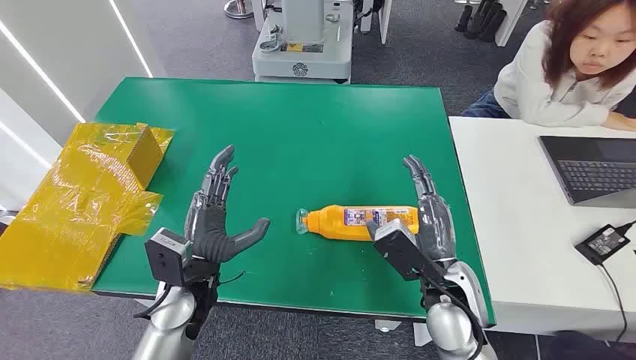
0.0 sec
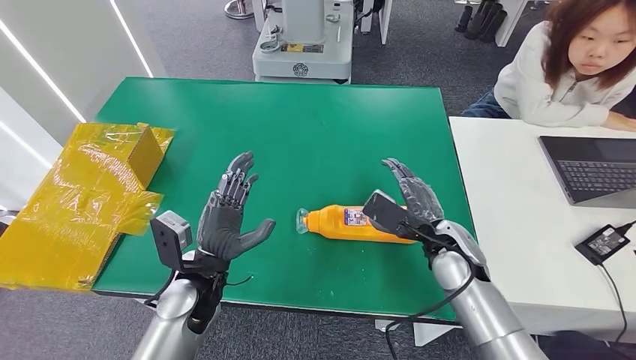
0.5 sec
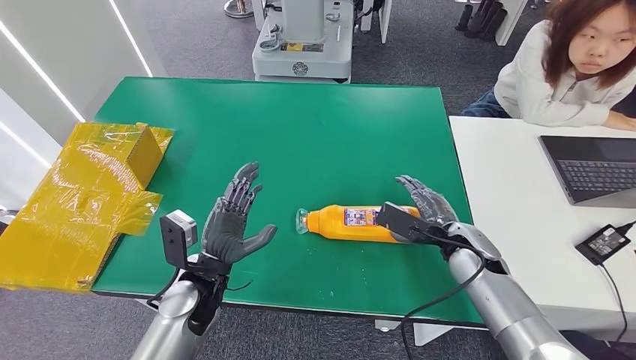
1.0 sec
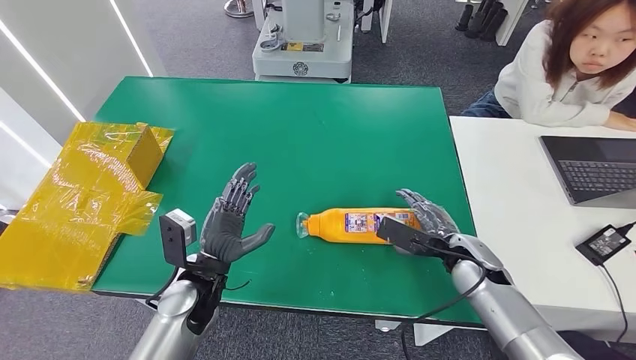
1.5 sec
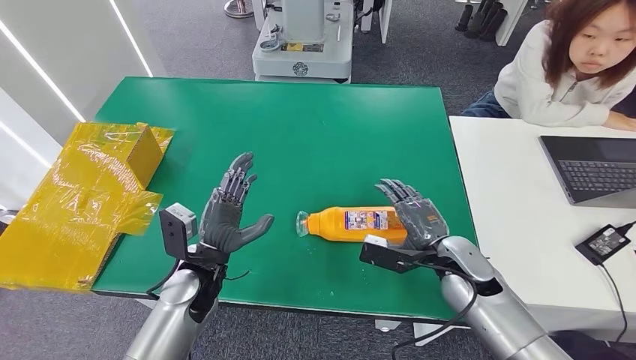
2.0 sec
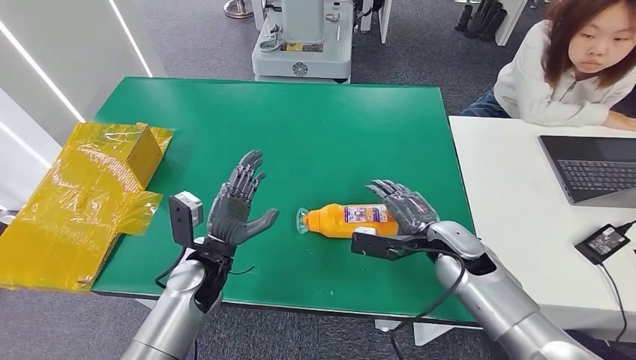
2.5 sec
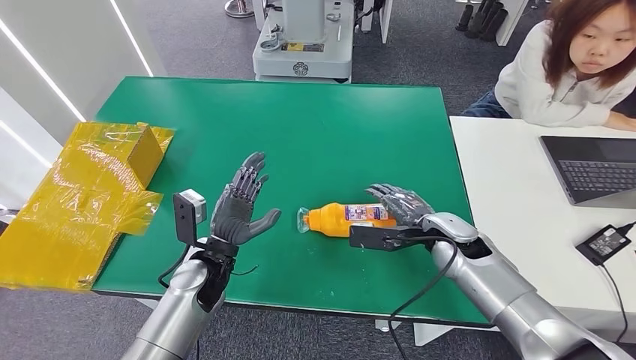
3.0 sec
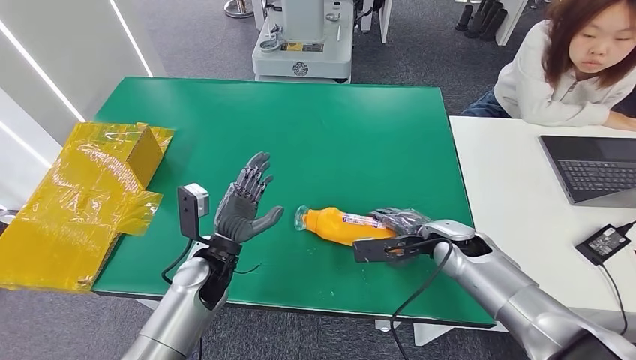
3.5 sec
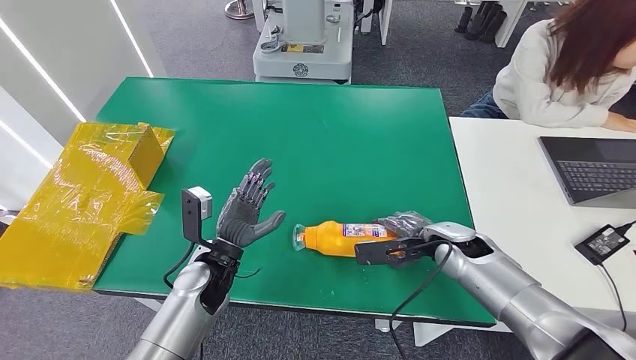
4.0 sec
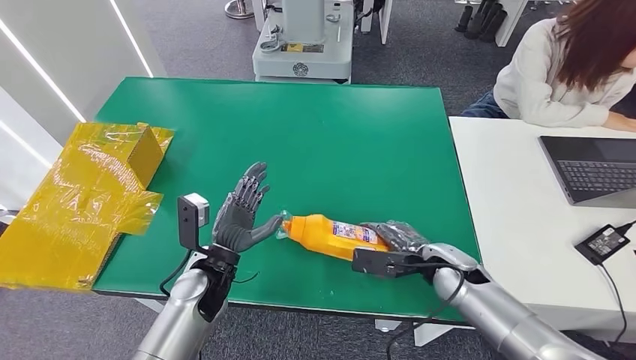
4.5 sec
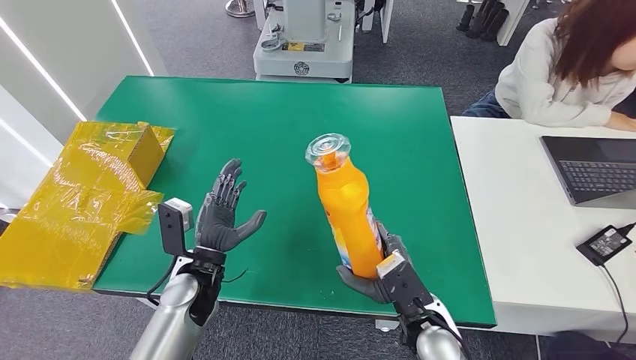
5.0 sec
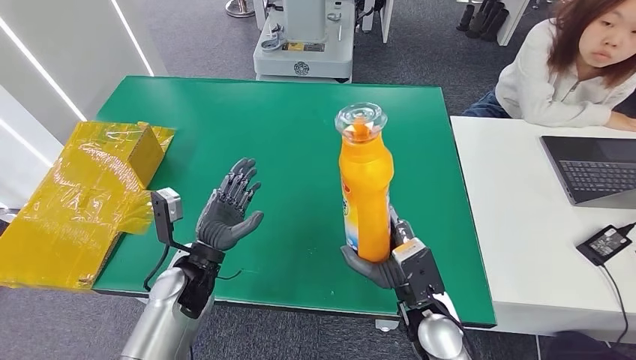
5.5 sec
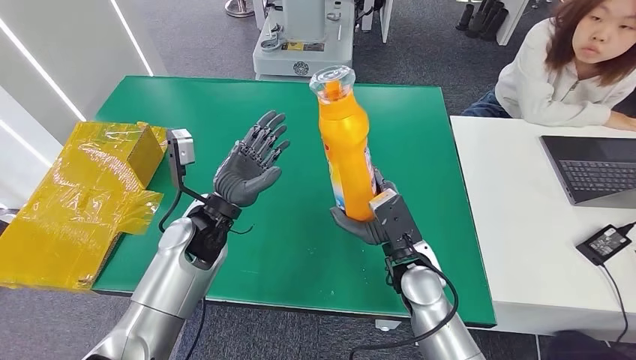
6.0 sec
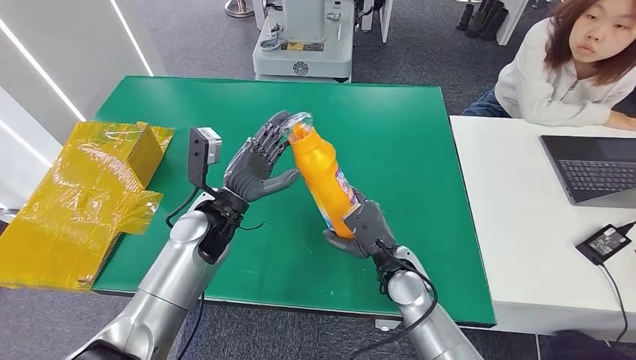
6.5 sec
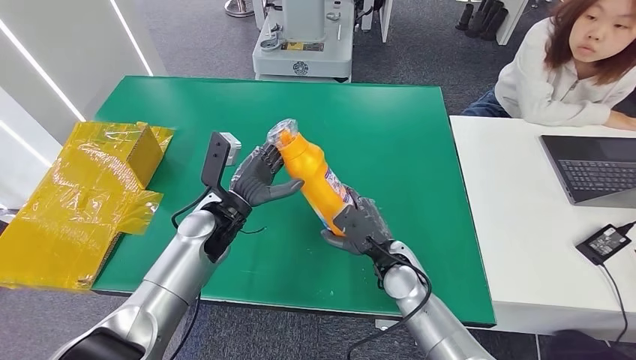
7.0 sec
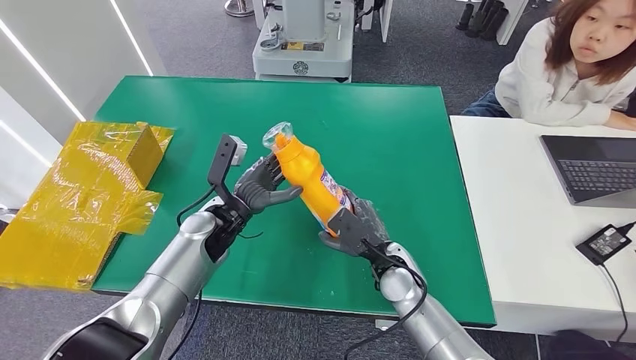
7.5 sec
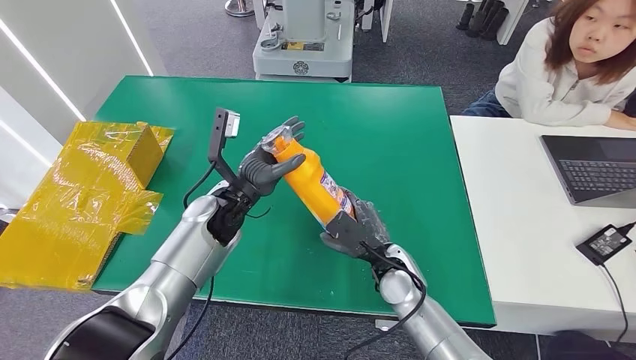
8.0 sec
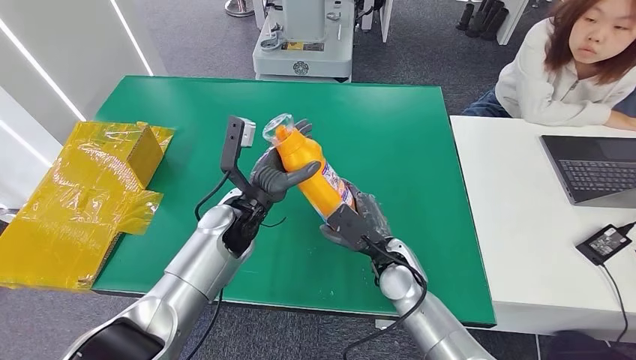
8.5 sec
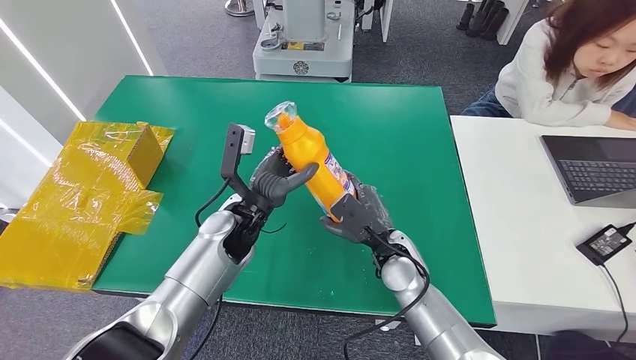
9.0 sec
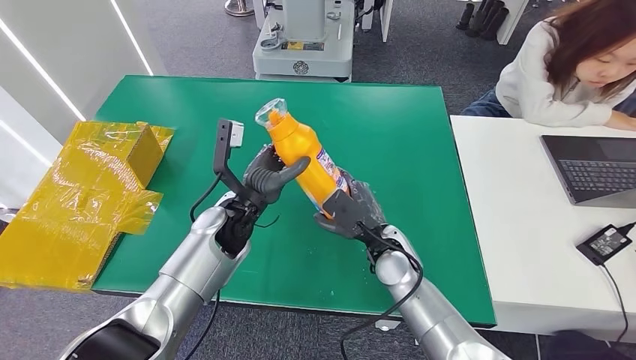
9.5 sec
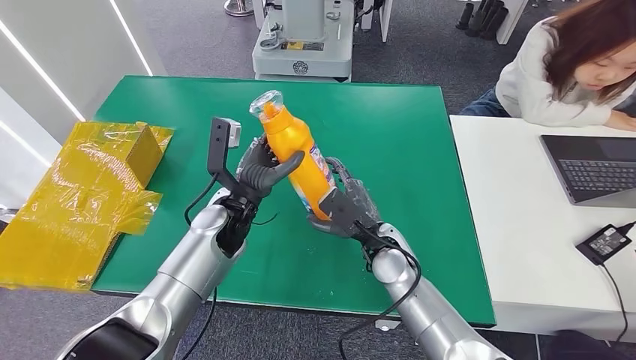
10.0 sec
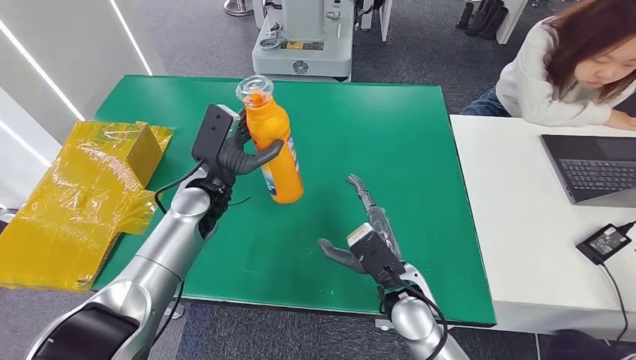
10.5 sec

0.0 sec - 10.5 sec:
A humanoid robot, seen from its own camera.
Step, 0.0 sec - 5.0 sec: Pick up the bottle from the table.
6.5 sec - 8.5 sec: There are only small adjustments of the hands.

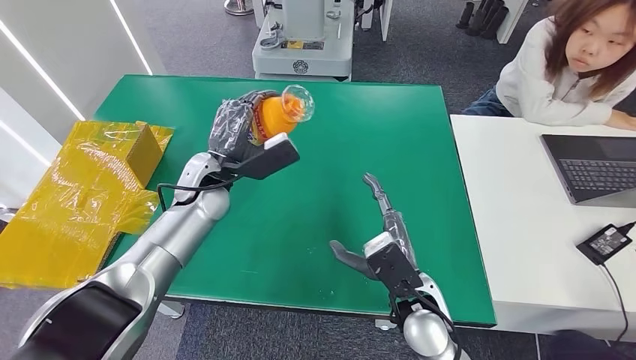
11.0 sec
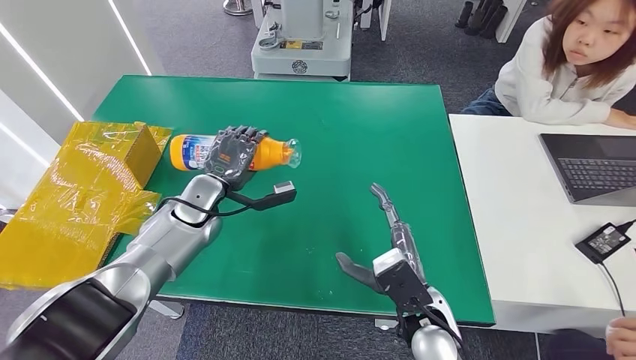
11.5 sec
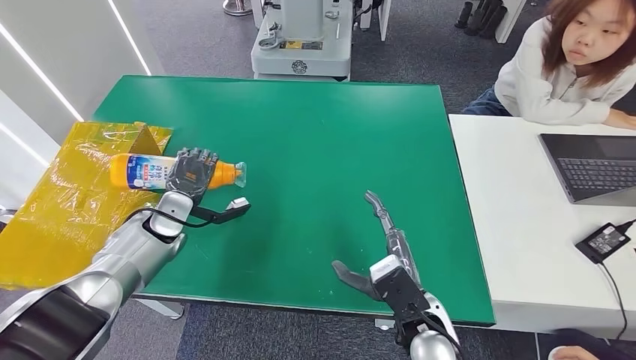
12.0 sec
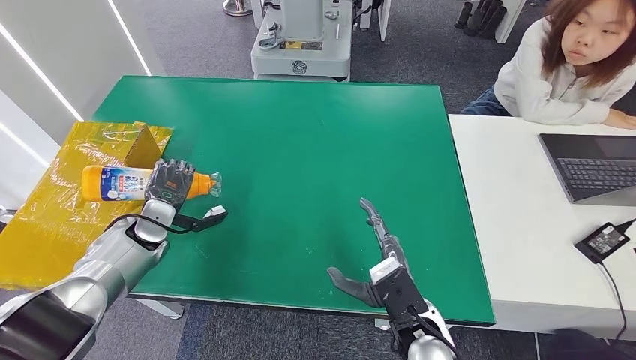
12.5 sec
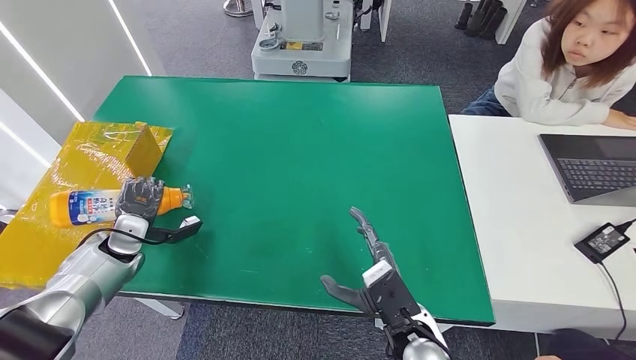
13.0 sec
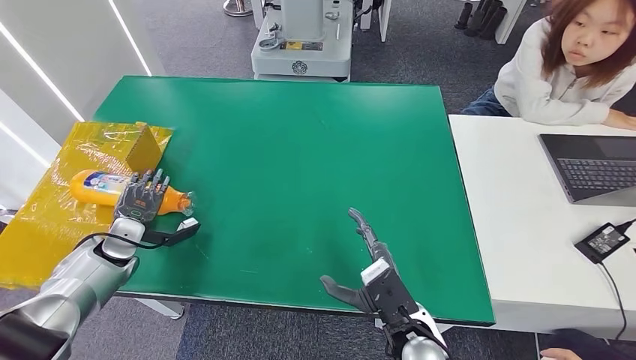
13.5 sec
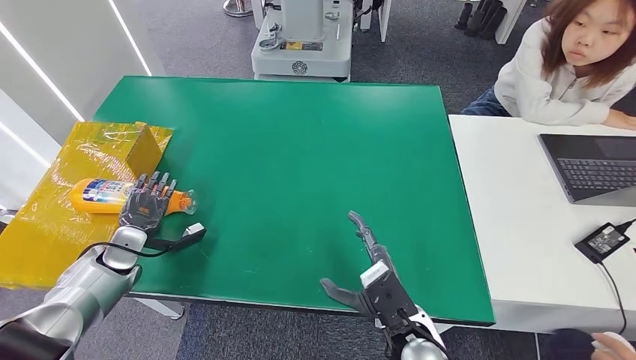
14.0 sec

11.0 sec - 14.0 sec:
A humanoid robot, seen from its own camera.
Step, 11.0 sec - 14.0 sec: Turn the bottle to the front side.
12.5 sec - 14.0 sec: The left hand shifts some 5 cm to the left.
